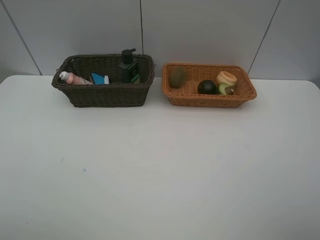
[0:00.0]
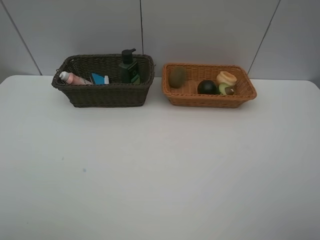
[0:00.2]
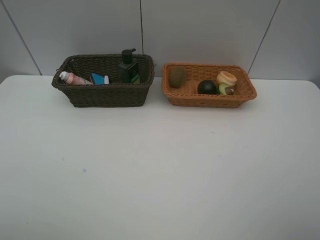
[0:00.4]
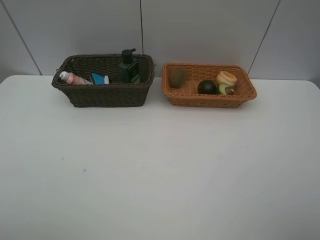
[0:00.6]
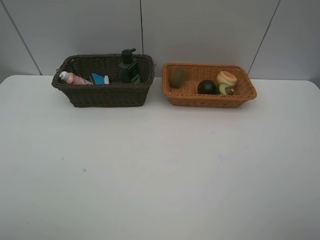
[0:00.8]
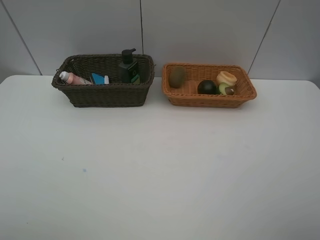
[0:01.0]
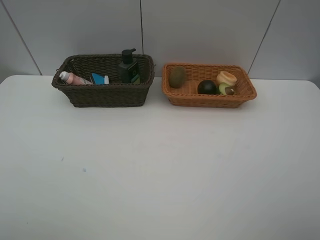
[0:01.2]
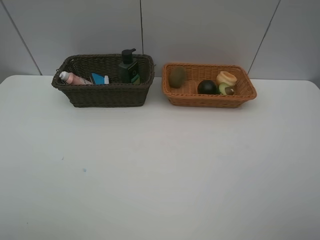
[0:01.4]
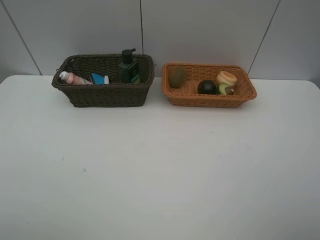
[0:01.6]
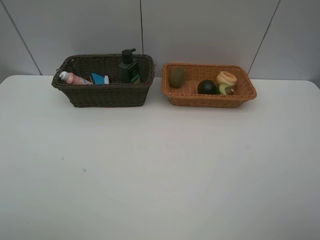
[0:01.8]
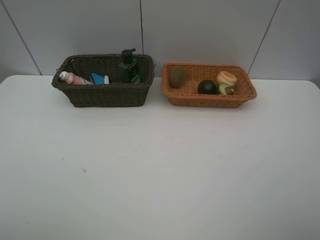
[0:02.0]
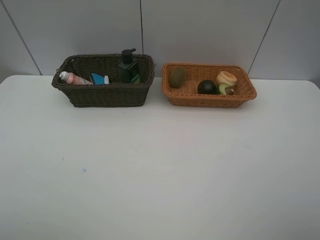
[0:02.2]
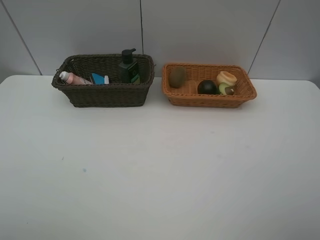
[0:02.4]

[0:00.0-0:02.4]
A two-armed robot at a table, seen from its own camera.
Task of the whole recording: Place multiple objects separately in different baskets.
0:01.2 to 0:02.4: Both grippers stay put.
